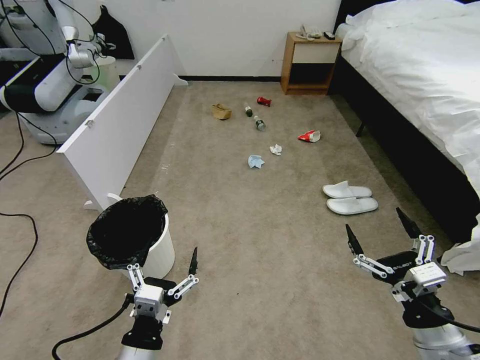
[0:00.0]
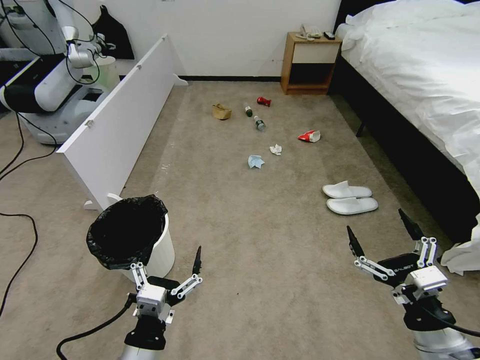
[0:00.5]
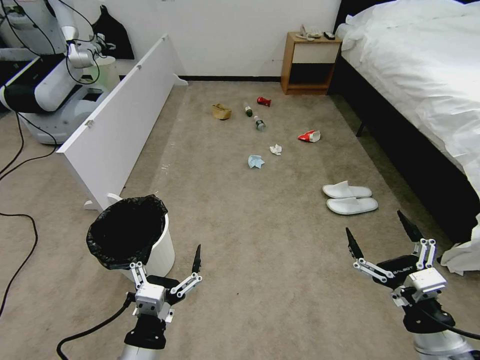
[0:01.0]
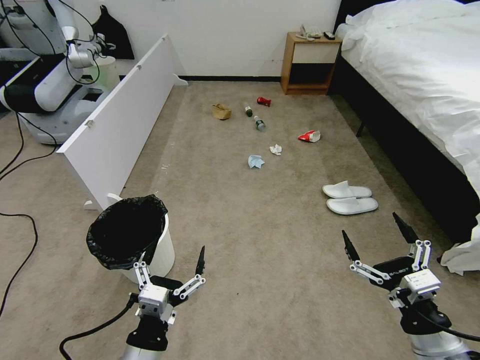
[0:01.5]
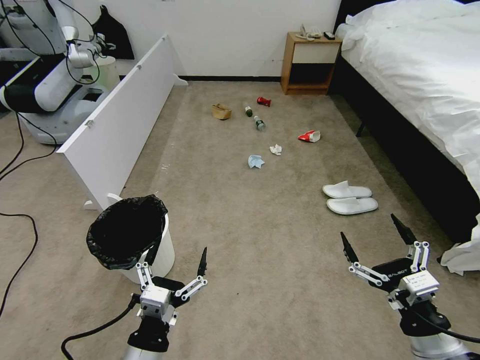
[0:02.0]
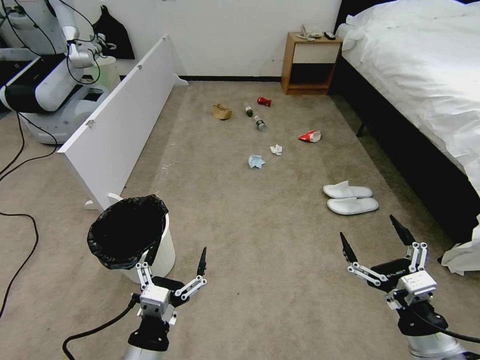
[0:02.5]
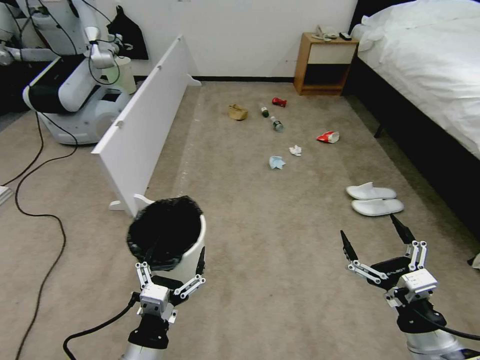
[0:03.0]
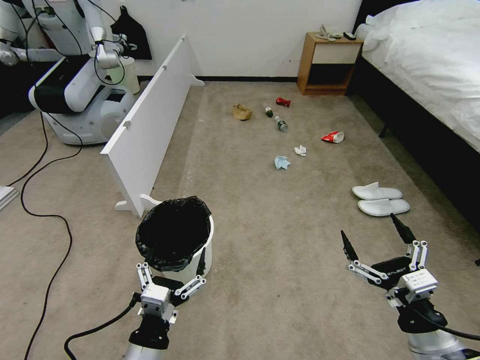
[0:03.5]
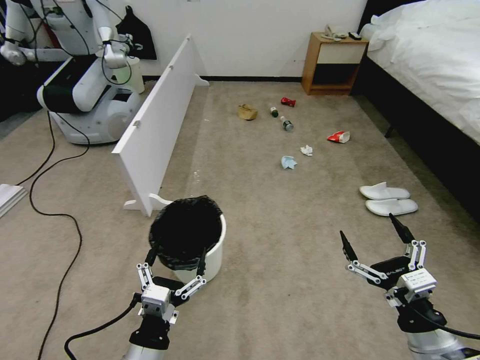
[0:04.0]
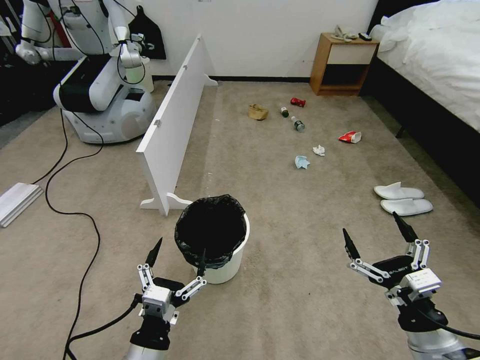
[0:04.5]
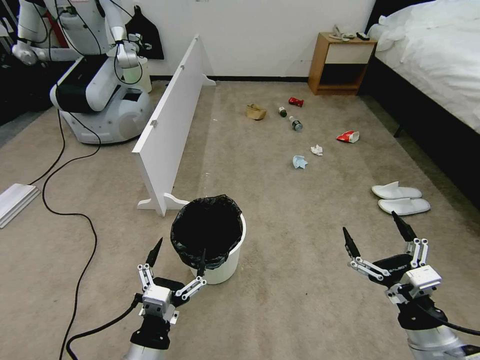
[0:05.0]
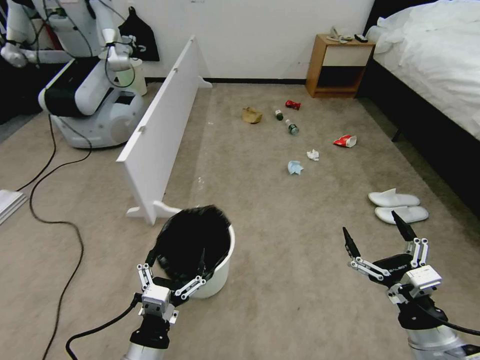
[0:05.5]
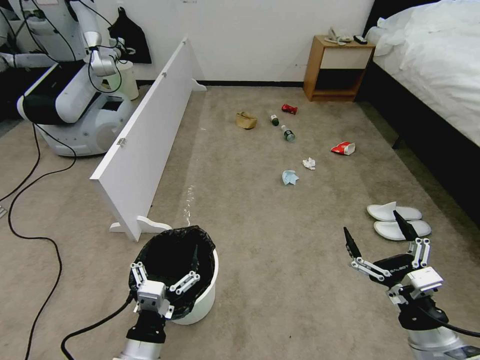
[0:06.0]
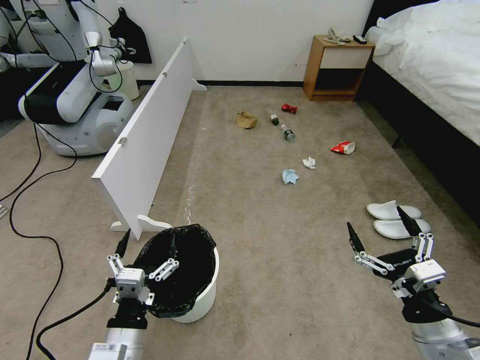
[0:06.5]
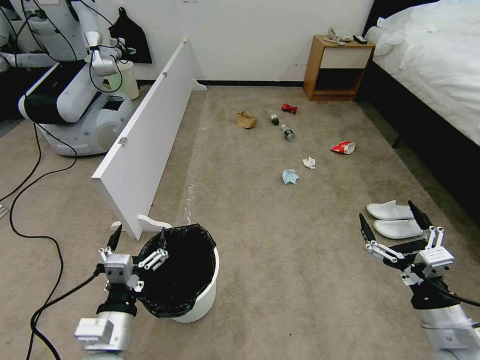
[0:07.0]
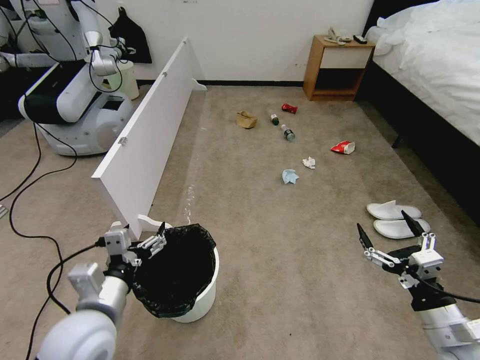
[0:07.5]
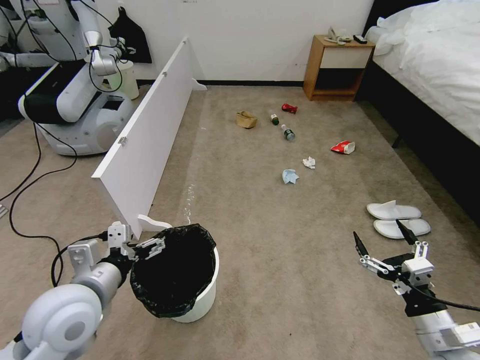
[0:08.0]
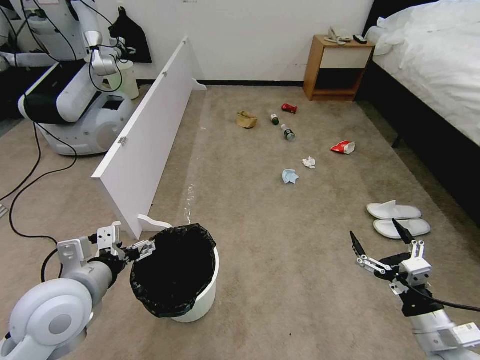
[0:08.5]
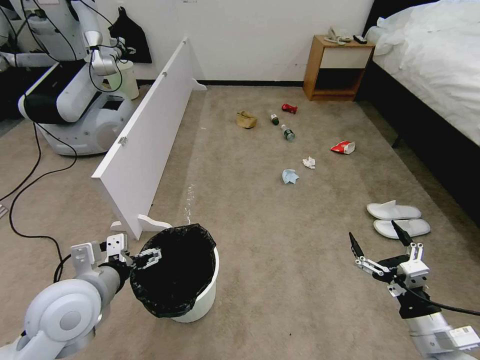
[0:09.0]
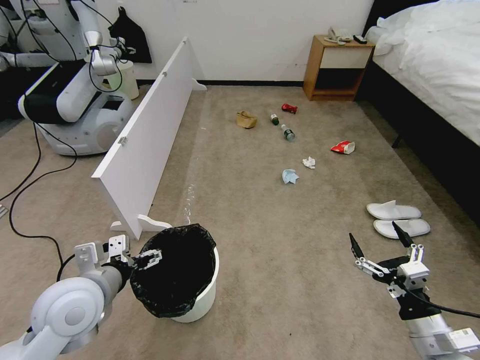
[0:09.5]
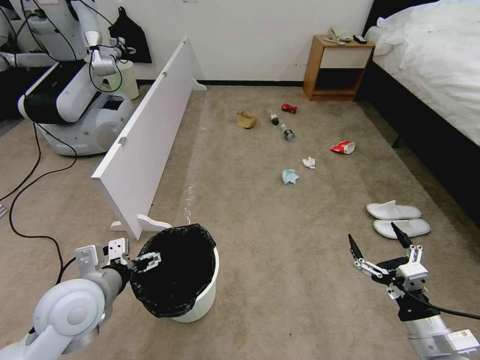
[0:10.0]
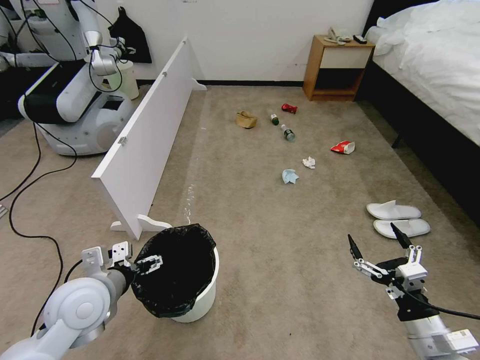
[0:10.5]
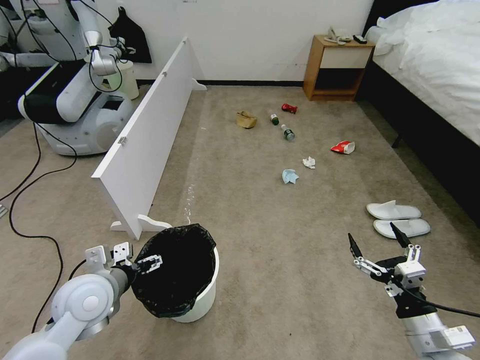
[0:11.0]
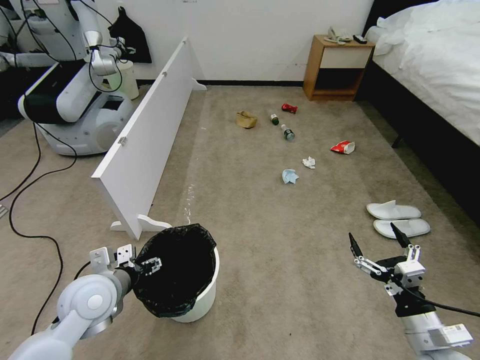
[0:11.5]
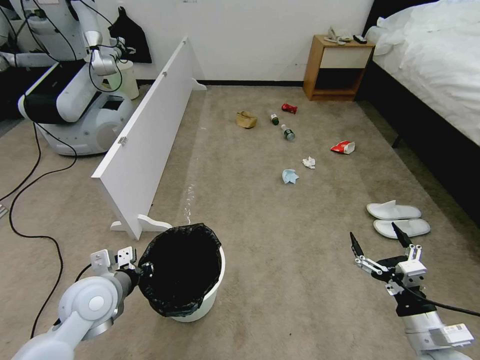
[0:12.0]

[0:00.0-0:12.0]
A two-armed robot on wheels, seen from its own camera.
Task of the whole recording: Pick up the trash bin, then pick up the garbage from the floor and place it into the trash bin.
0:06.0 to 0:08.0: The left gripper goes roughly 20 cm upward, forward and to the left. Meanwhile the right gripper ends up about 5 cm from where it was.
0:08.0 to 0:10.0: The grippers move only a little.
0:10.0 to 0:12.0: The left gripper moves downward, approximately 5 cm, and closes up.

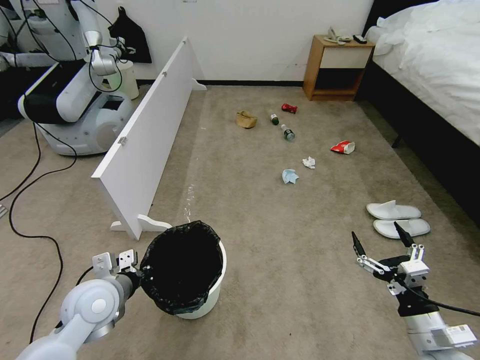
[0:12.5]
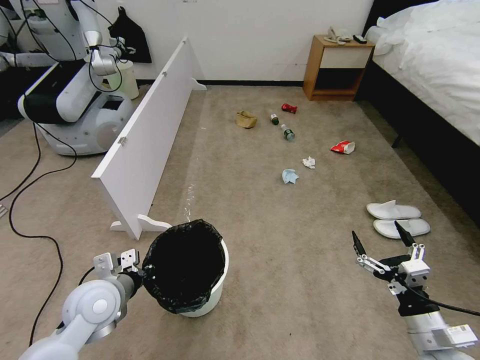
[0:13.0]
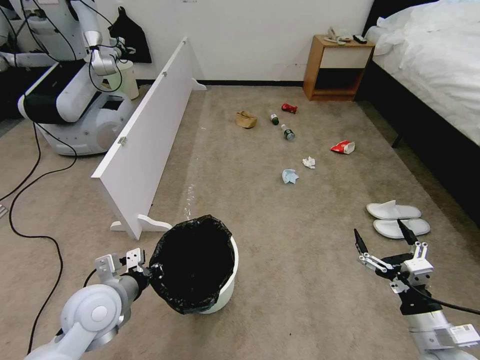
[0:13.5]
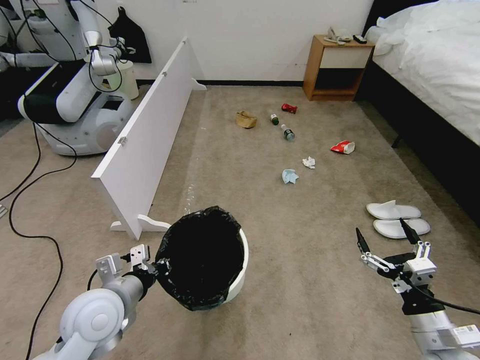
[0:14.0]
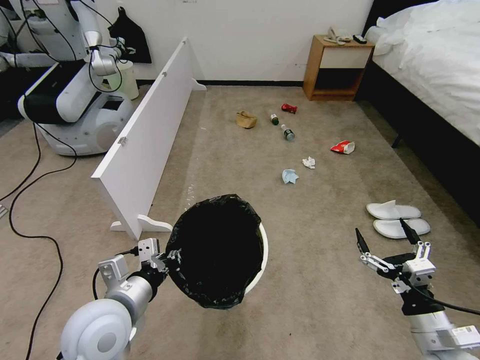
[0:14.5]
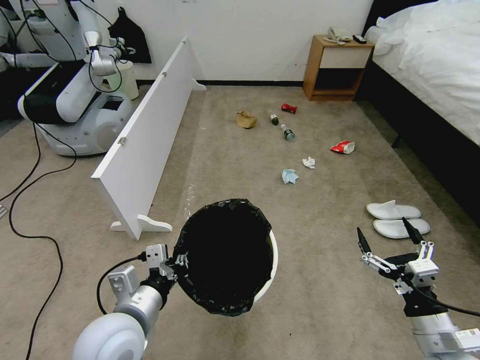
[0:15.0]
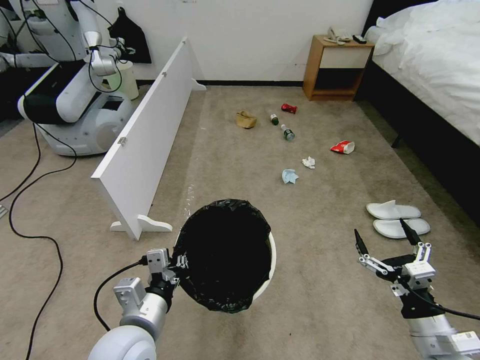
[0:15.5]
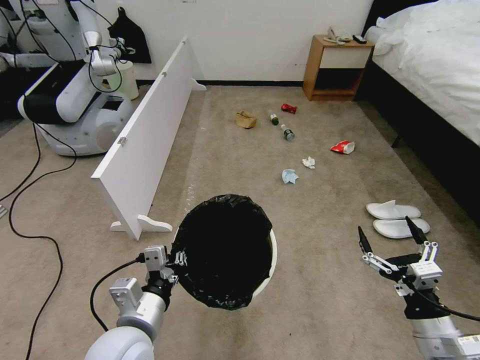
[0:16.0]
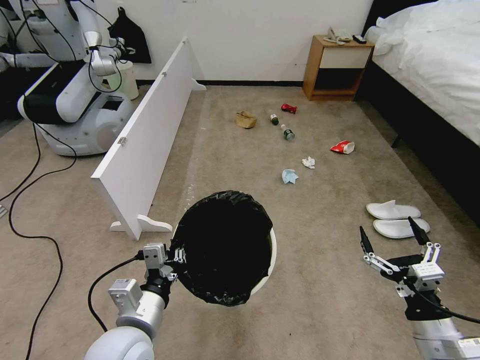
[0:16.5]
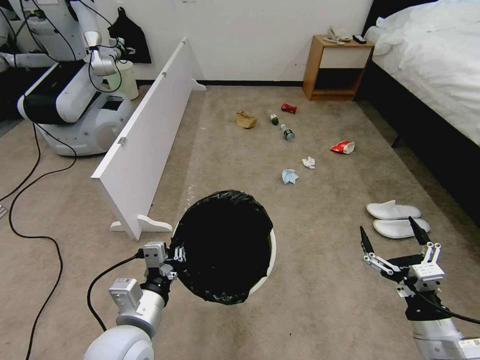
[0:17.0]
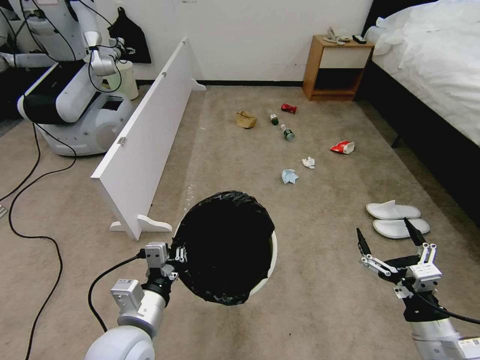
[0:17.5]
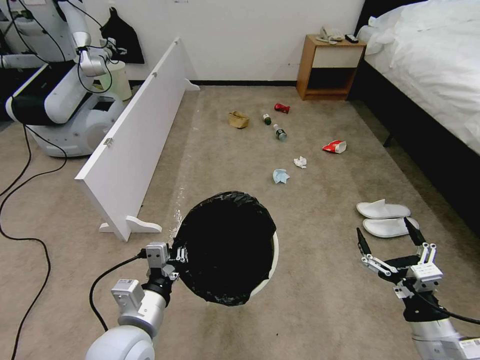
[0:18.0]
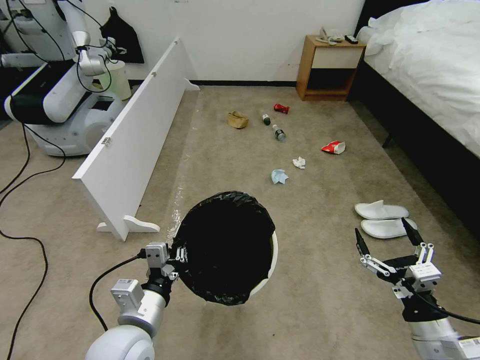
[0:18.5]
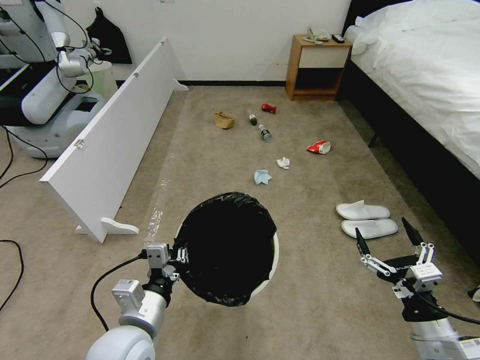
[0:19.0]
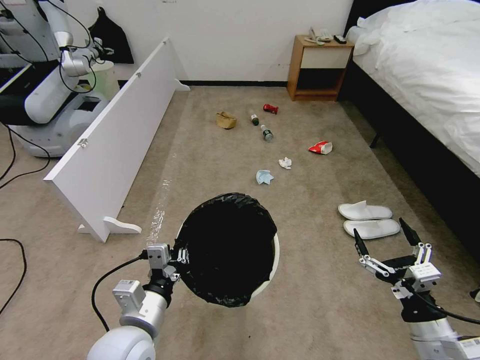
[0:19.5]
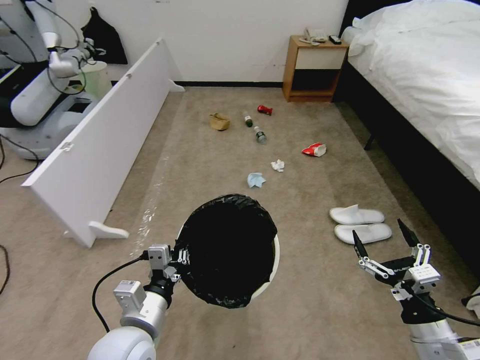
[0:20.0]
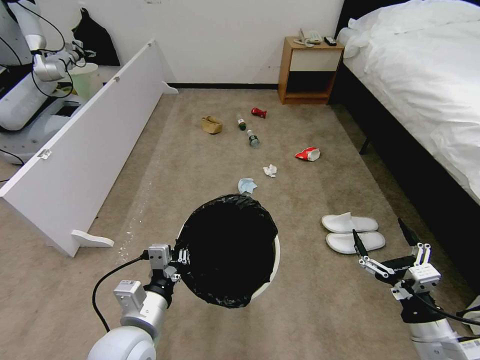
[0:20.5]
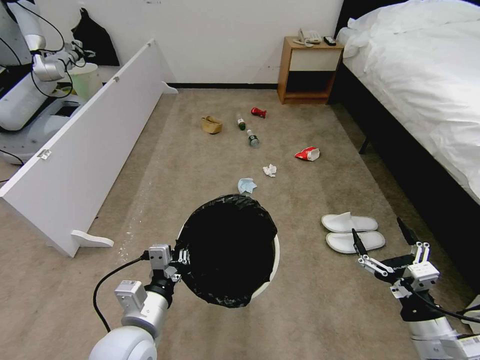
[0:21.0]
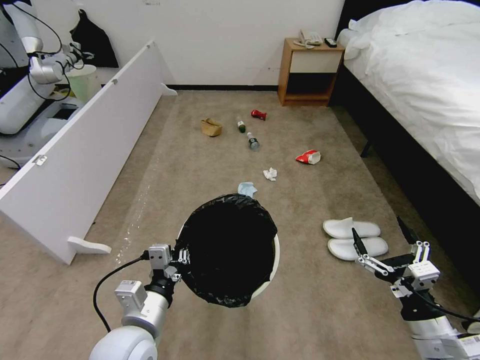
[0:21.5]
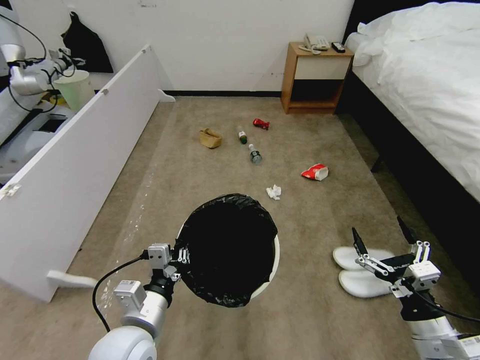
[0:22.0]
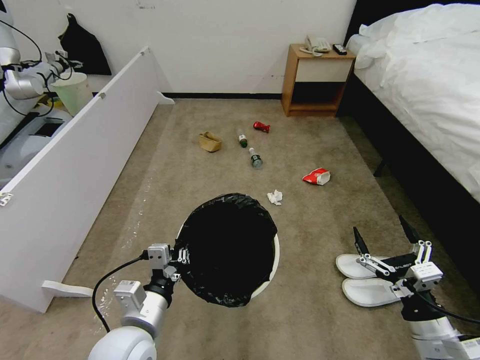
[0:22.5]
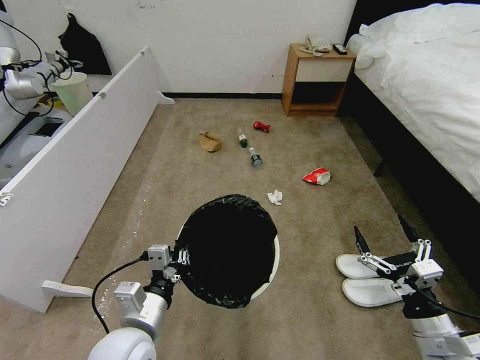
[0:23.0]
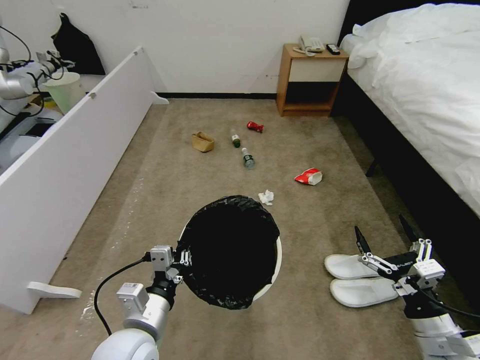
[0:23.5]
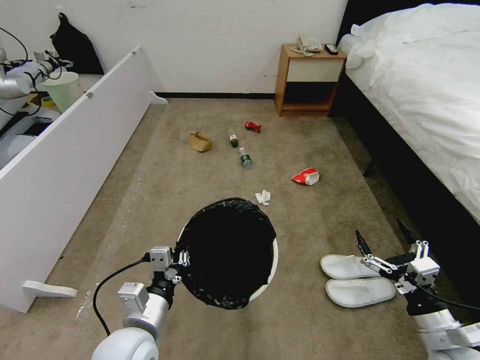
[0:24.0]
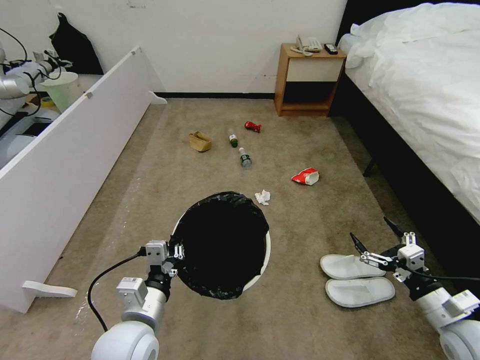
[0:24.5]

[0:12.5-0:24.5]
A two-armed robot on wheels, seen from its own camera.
Task of the whole recording: Pick up the trash bin, then pick up the garbage from the floor and place it into the trash bin.
0:12.5 to 0:14.5: The left gripper moves to the right, backward and upward, roughly 10 cm.
0:14.5 to 0:16.5: The left gripper shifts by roughly 5 cm.
0:22.5 to 0:24.5: The right gripper is displaced to the right and forward by approximately 10 cm.

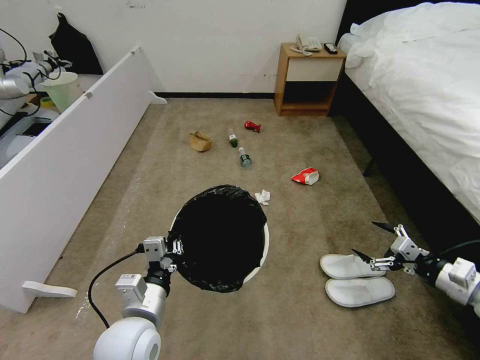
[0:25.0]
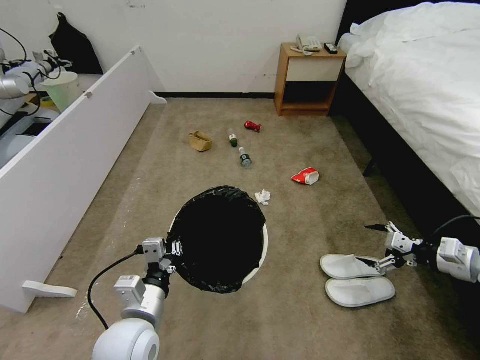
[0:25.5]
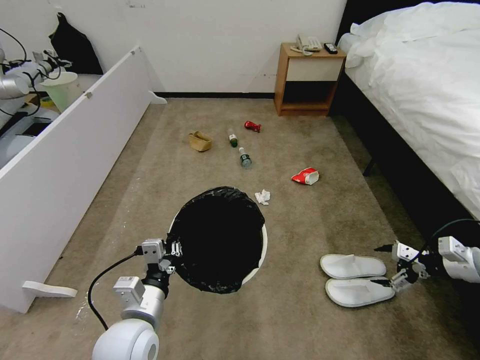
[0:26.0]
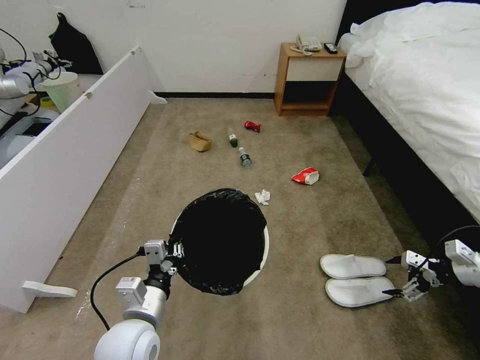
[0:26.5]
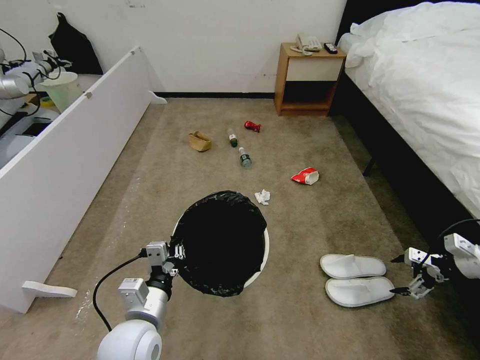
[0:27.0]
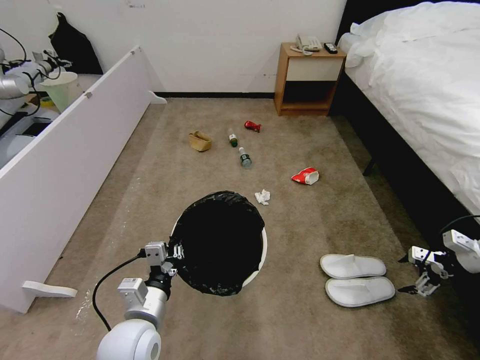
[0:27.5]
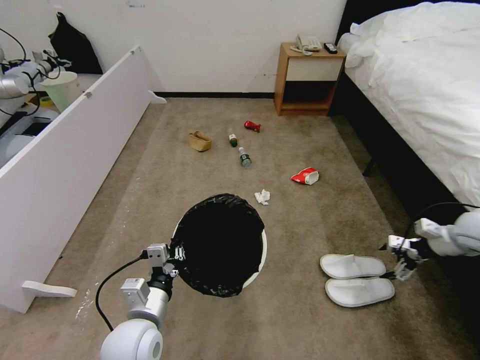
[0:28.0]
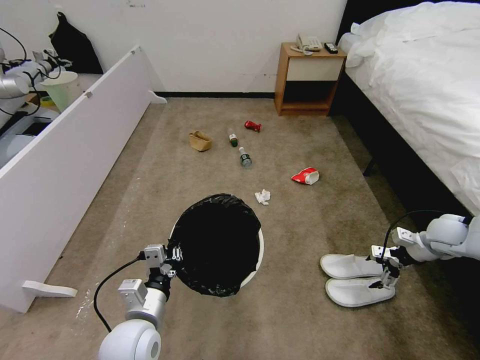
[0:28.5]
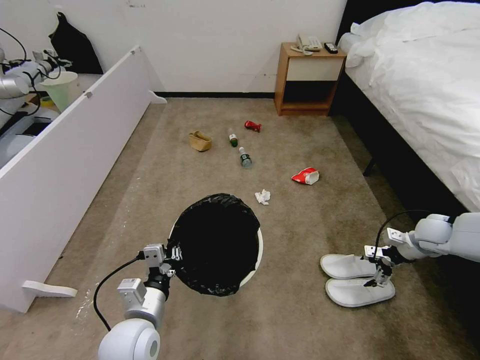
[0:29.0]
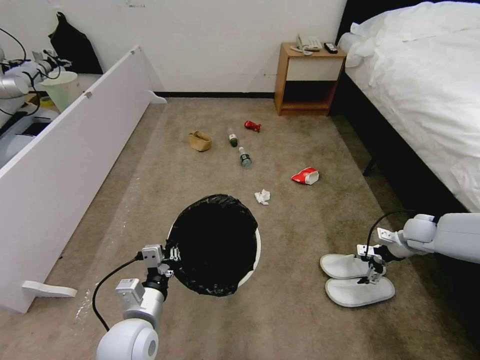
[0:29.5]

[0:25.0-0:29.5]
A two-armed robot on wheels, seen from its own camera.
Task of the whole recording: Pick up the trash bin, then pick up the garbage from the floor and place it into the trash bin.
0:25.0 to 0:27.0: The right gripper shifts approximately 10 cm forward and to the right.
0:27.0 to 0:29.5: The right gripper travels forward, downward and to the left by some 15 cm.
